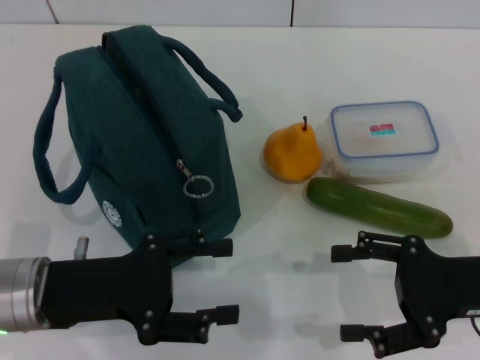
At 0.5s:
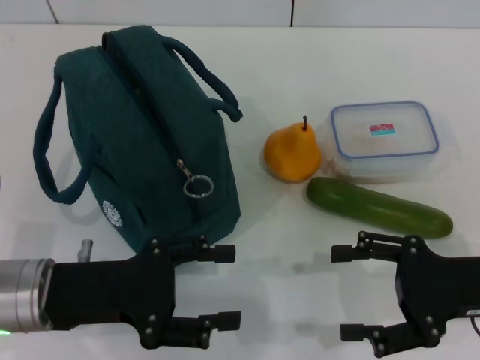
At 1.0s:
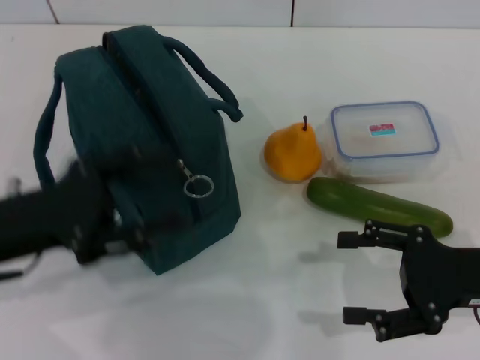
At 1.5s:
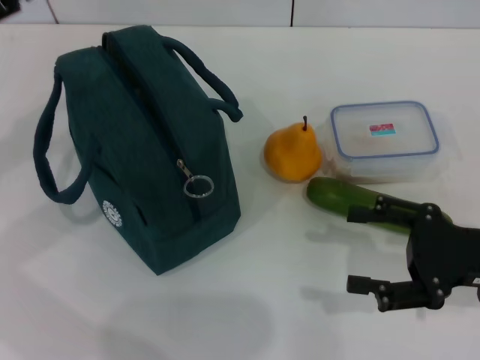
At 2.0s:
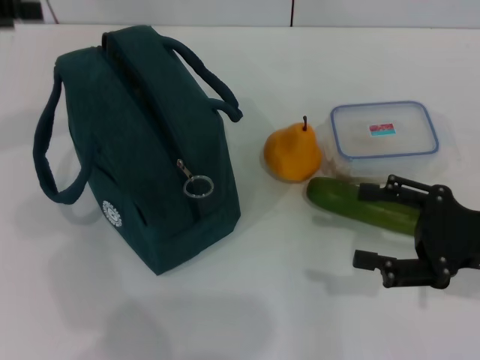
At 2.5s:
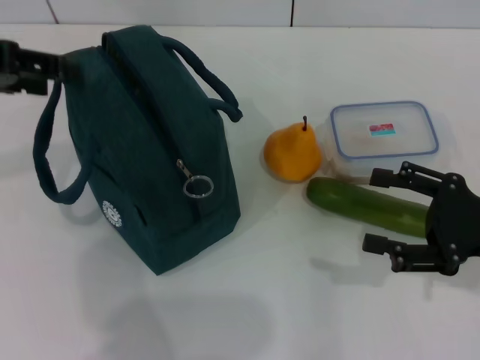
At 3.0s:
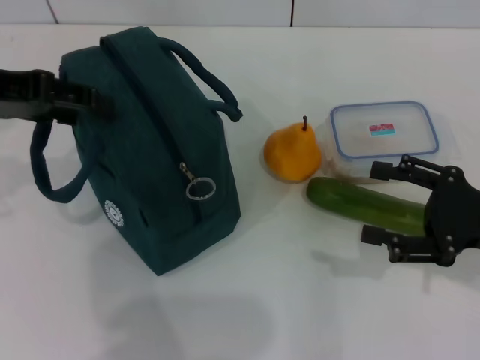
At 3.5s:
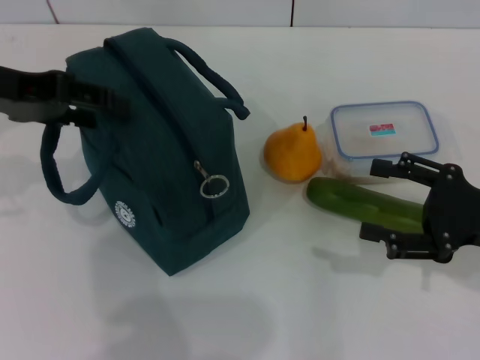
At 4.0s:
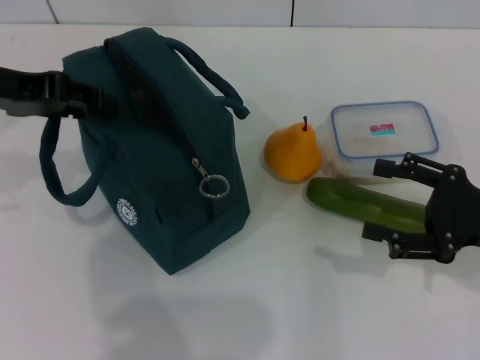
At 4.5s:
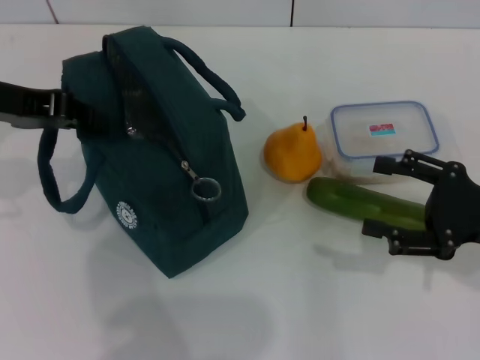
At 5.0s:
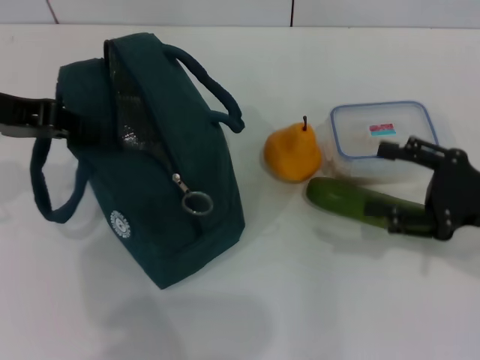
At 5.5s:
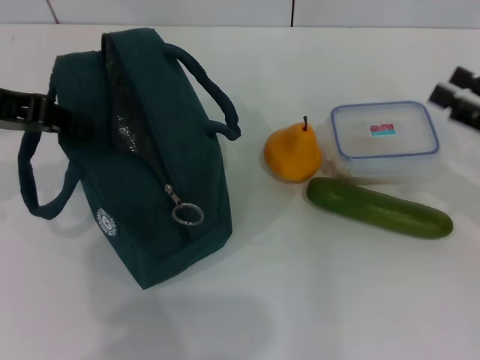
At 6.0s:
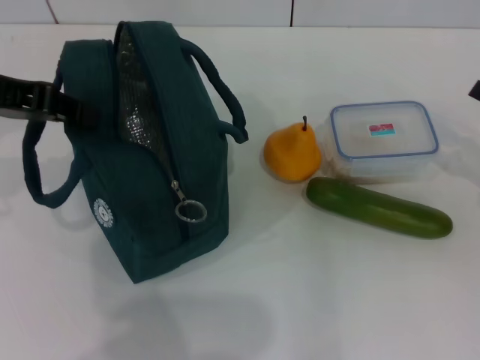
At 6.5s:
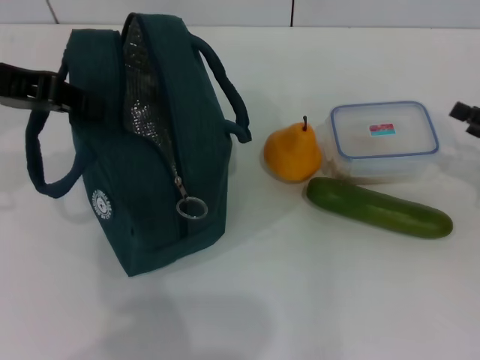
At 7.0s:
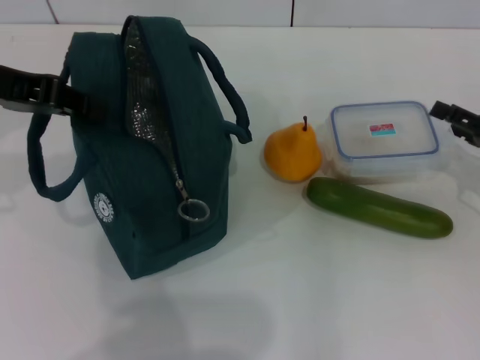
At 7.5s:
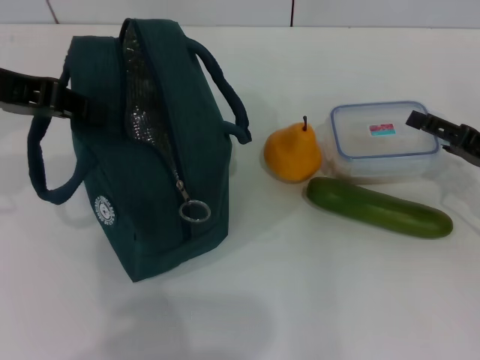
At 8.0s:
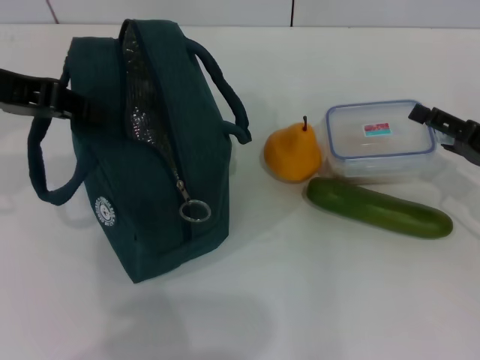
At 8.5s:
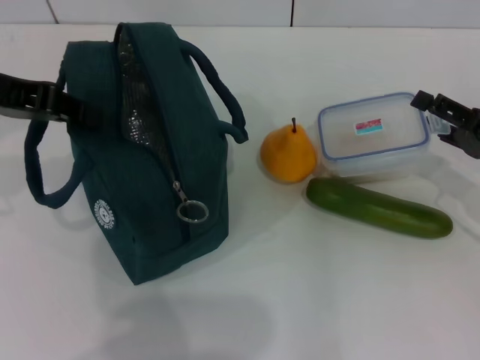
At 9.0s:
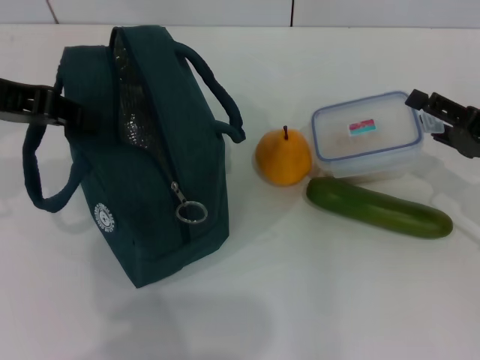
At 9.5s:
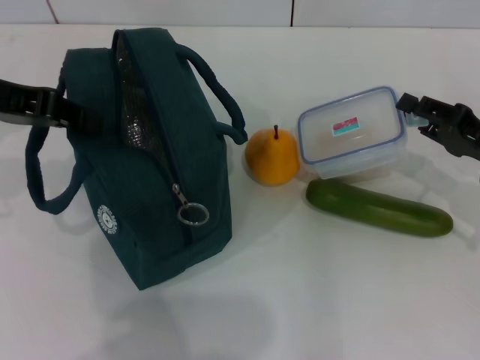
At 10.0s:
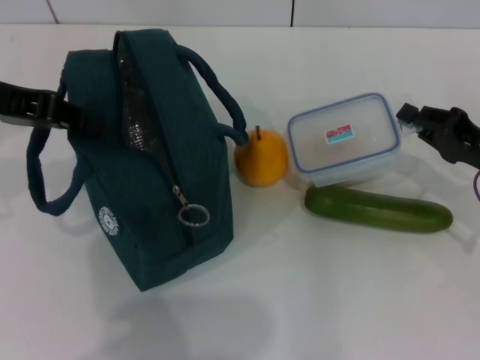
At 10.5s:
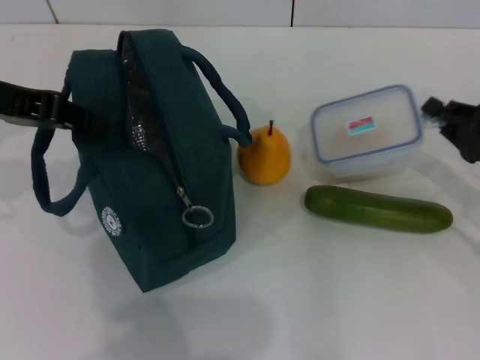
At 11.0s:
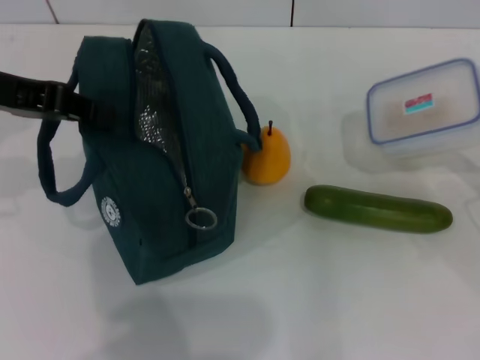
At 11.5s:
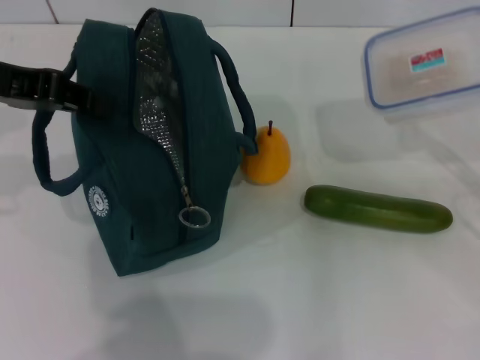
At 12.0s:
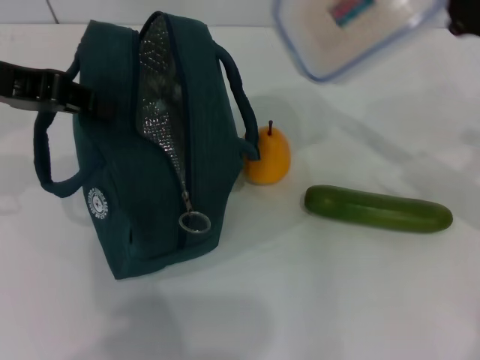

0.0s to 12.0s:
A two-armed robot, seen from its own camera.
Step, 0.0s to 4.5s: Hold the lunch bag with your left hand.
Step, 5.0s to 10.0s: Pick up the lunch box with your right hand.
0.0s to 2.0s: The left gripper is displaced upward, to the left and forward by some 25 cm.
2.0s to 4.0s: The left gripper moves to the right, approximately 5 cm.
4.0s to 6.0s: The right gripper moves to the right, approximately 10 cm, while the left gripper closes its fingers.
6.0s to 8.0s: The right gripper moves about 5 cm.
8.0s to 10.0s: The right gripper closes its fingers.
10.0s to 12.0s: The right gripper is displaced upward by approximately 10 cm.

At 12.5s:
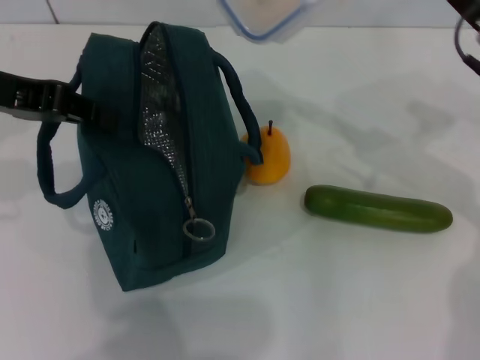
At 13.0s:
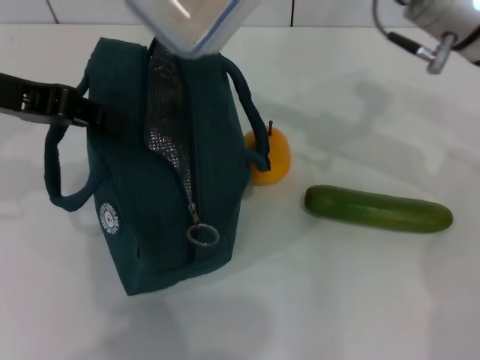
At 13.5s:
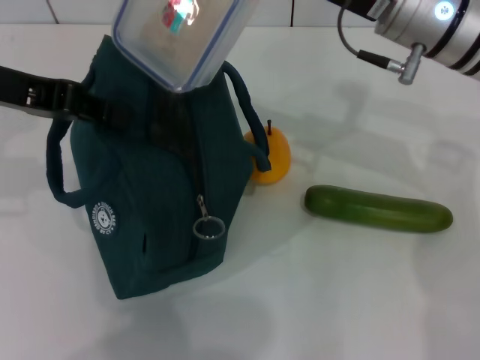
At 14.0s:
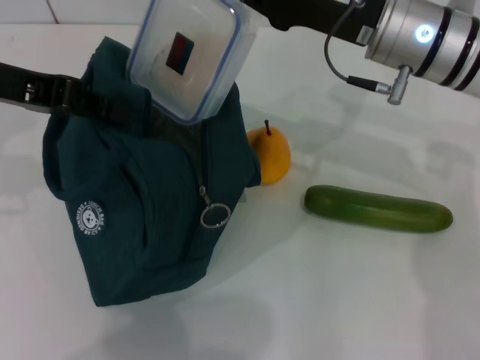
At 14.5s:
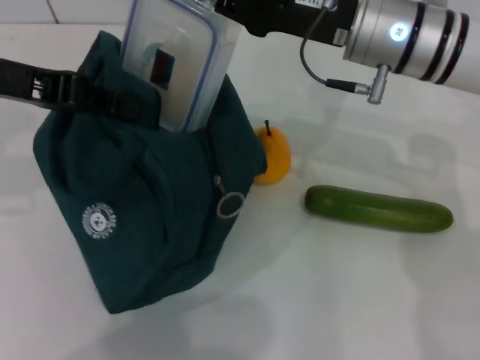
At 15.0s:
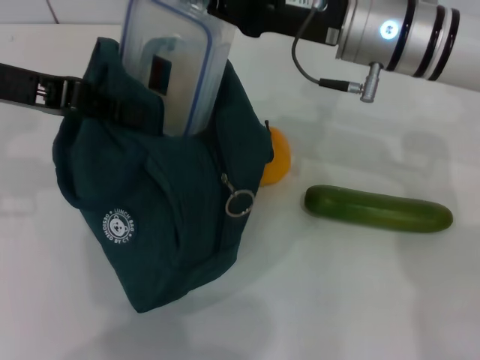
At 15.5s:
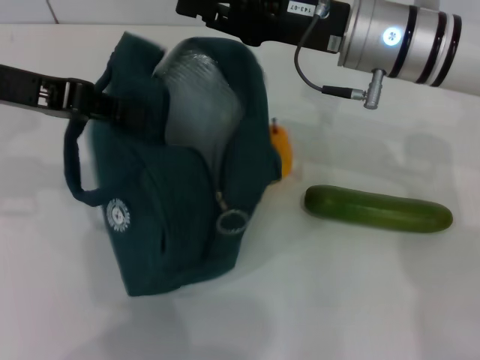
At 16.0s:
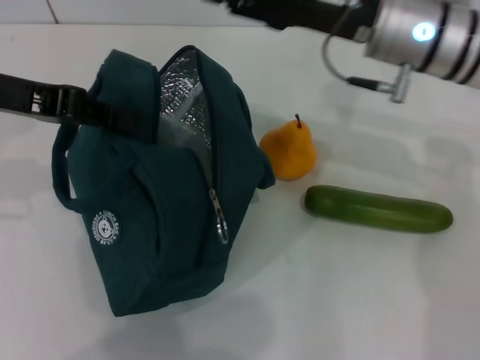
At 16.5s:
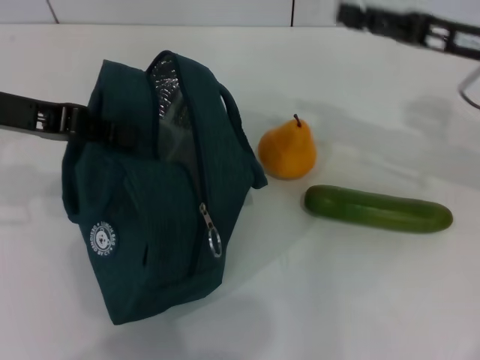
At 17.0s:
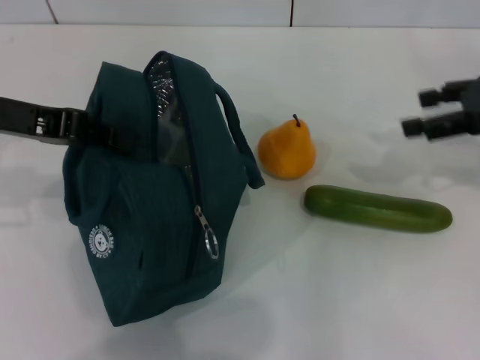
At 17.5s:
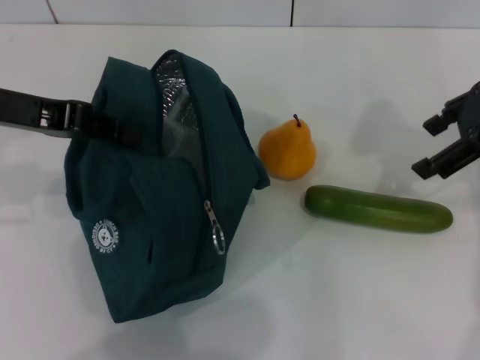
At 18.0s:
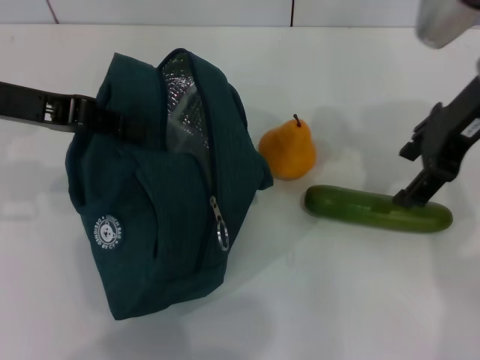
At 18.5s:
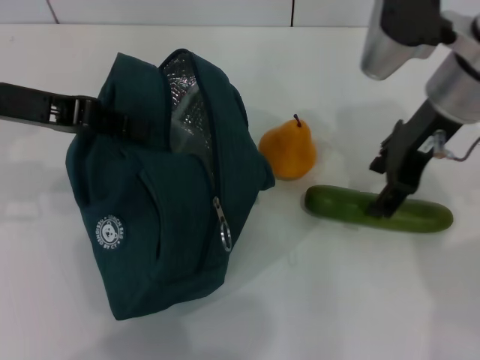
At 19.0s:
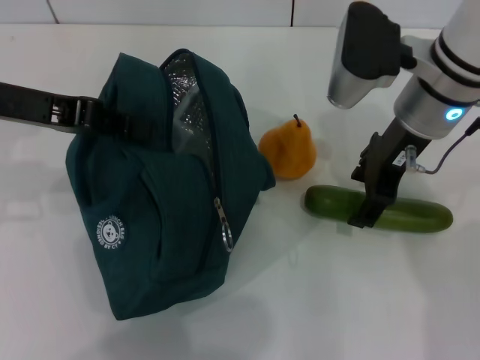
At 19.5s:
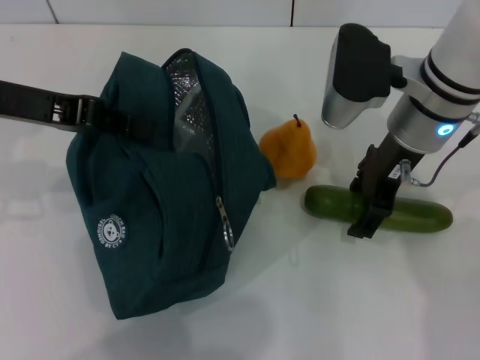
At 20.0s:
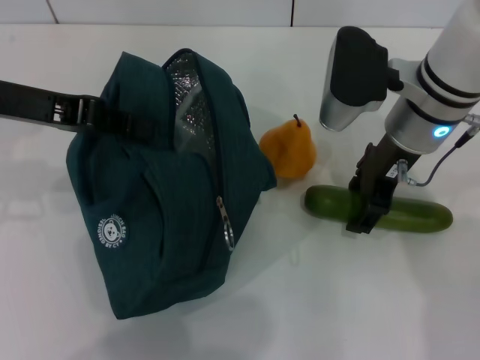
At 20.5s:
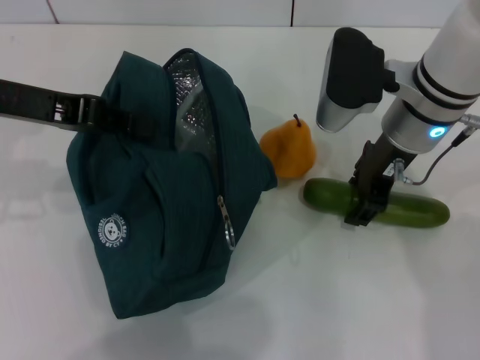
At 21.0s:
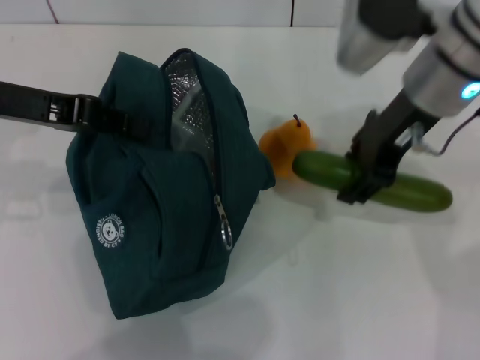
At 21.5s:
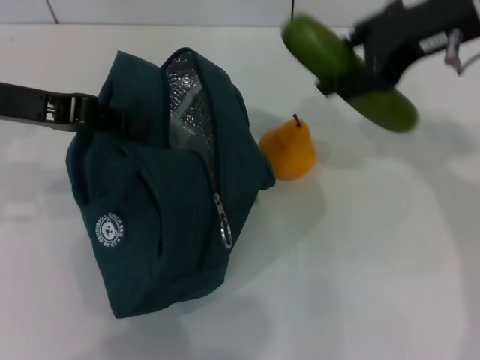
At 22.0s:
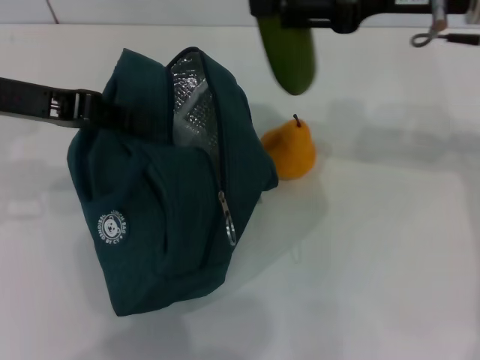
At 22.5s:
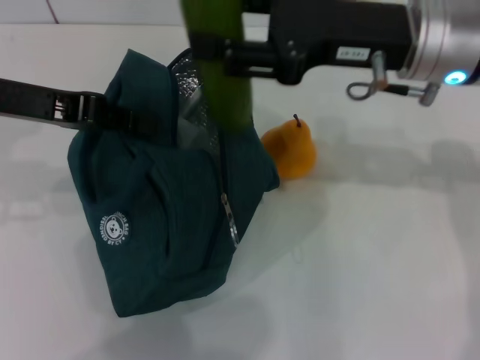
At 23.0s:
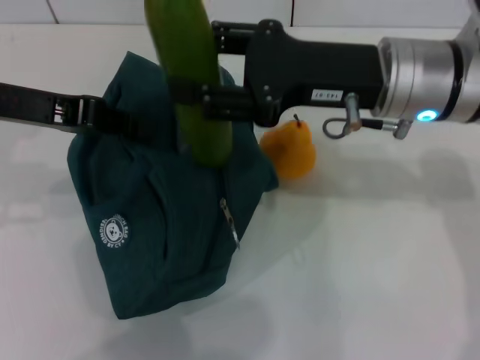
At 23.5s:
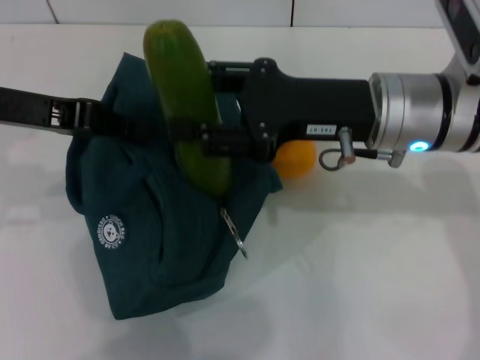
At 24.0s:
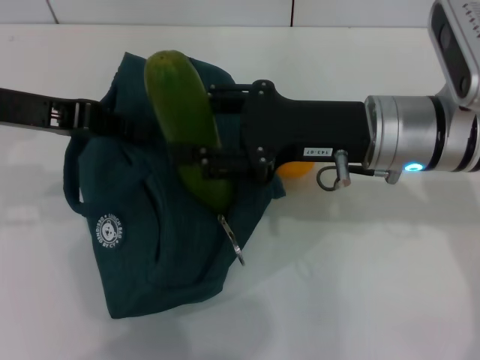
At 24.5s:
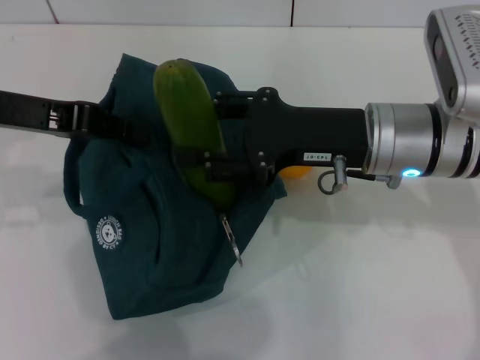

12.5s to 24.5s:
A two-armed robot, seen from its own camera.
Step, 12.5s to 15.5s: Place the lunch box into the lunch bag with your right hand.
Step, 16.0s to 20.0s: Pick up the cucumber with your right hand.
12.5s to 14.5s: The right gripper travels to the left by about 10 cm.
14.5s to 16.5s: The right gripper heads to the right, covering about 15 cm, and opens its fingers.
16.5s to 18.5s: The right gripper travels to the left by approximately 10 cm.
18.5s to 20.5s: The right gripper moves some 5 cm.
20.5s to 22.5s: The right gripper shifts about 5 cm upward.
22.5s to 24.5s: The right gripper goes approximately 5 cm downward.

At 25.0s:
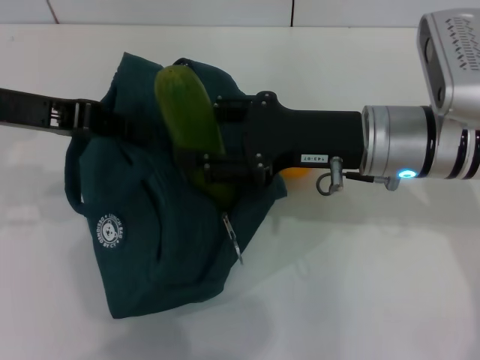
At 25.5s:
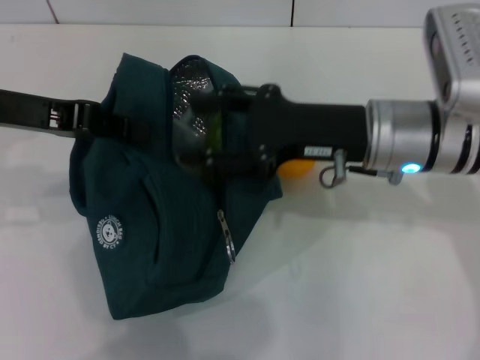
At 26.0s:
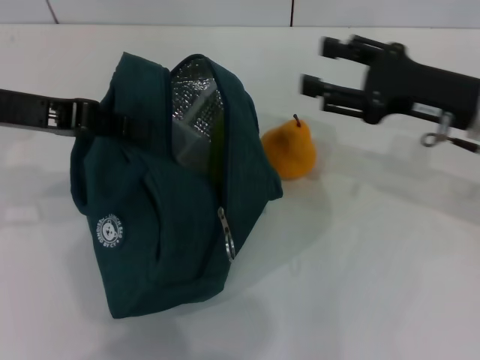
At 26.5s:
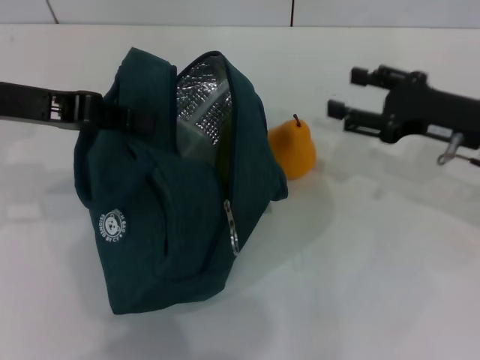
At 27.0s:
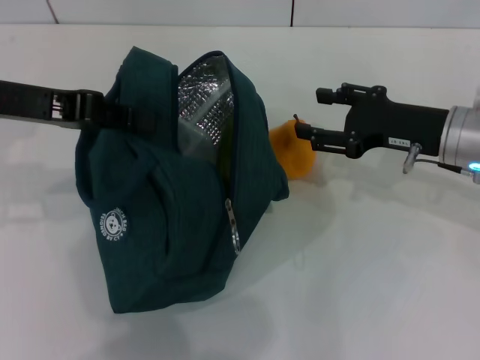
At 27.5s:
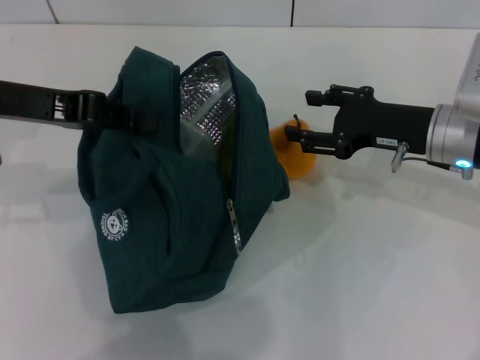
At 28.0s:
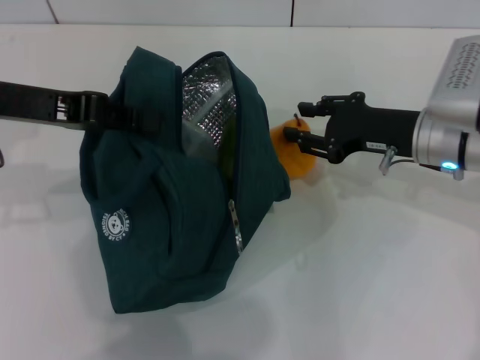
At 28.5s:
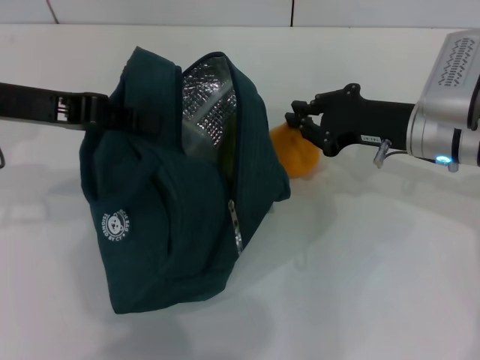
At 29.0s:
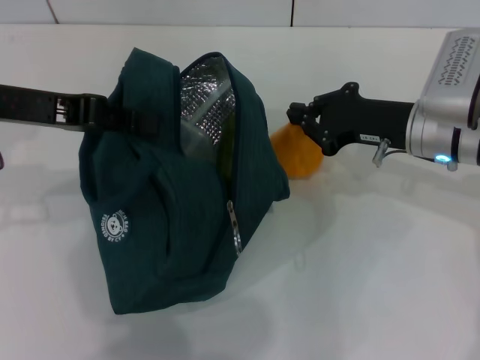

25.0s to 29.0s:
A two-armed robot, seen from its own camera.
25.0s to 27.0s: The right gripper shifts some 10 cm to the right.
27.0s to 29.0s: The right gripper closes up.
